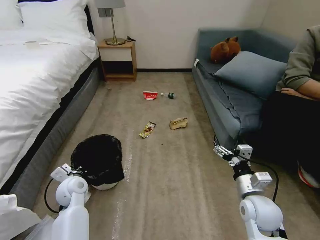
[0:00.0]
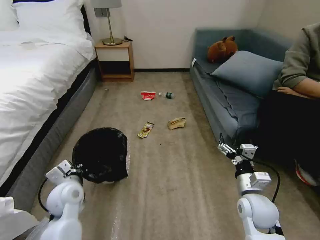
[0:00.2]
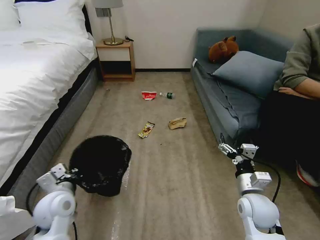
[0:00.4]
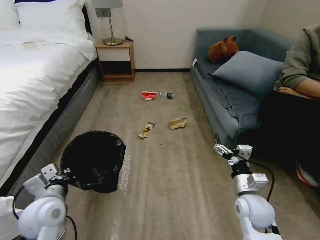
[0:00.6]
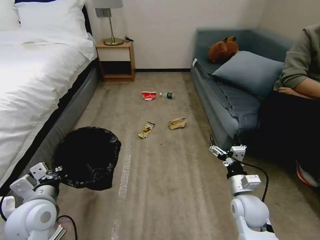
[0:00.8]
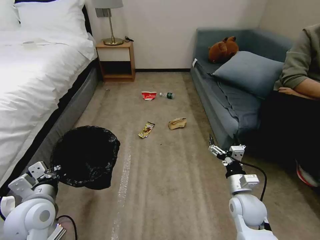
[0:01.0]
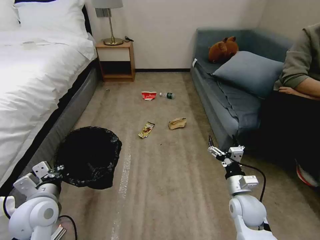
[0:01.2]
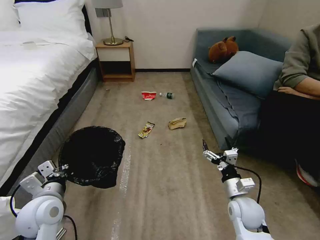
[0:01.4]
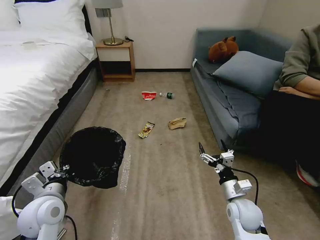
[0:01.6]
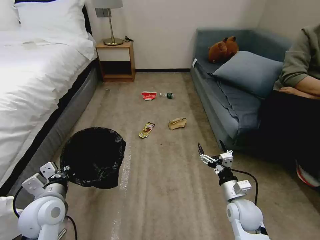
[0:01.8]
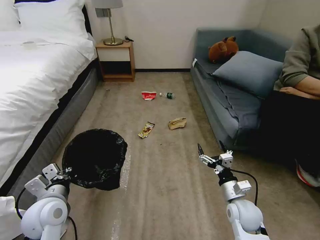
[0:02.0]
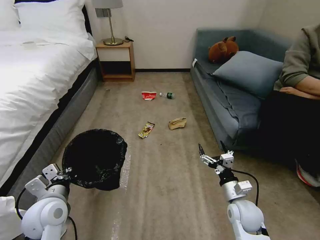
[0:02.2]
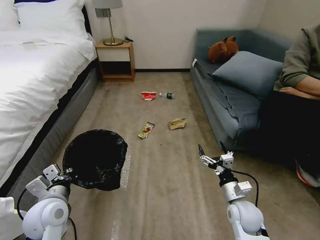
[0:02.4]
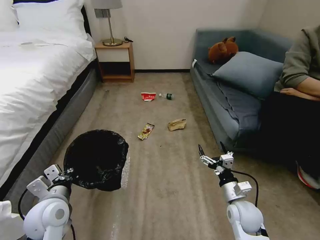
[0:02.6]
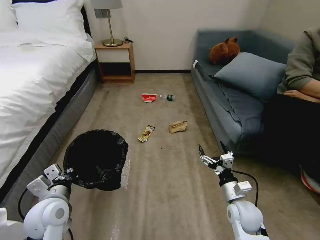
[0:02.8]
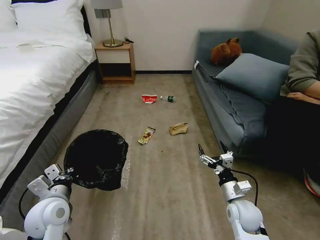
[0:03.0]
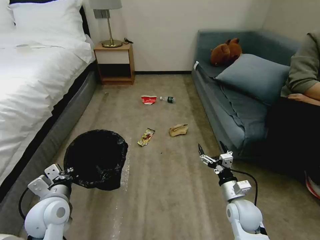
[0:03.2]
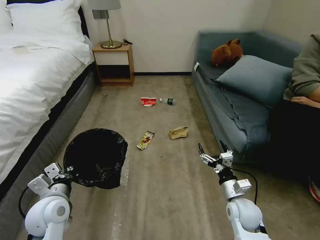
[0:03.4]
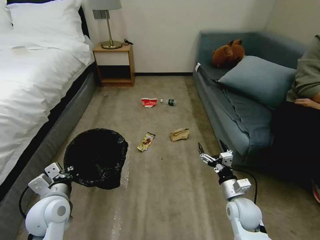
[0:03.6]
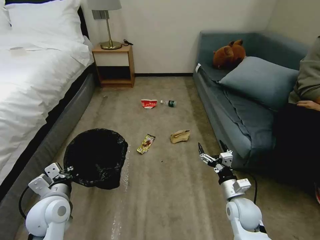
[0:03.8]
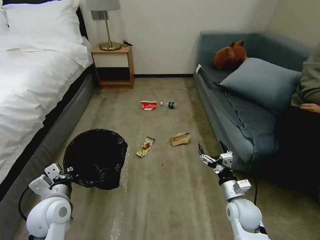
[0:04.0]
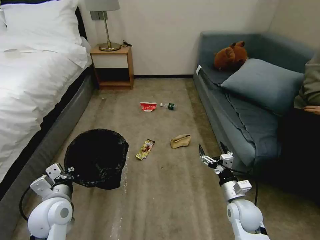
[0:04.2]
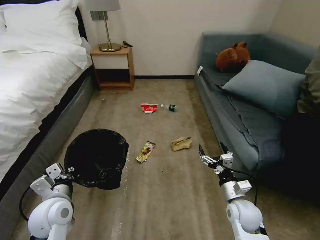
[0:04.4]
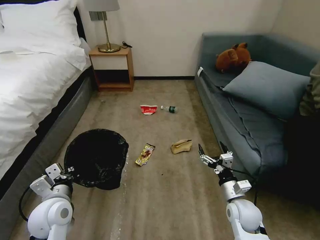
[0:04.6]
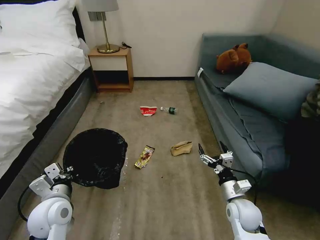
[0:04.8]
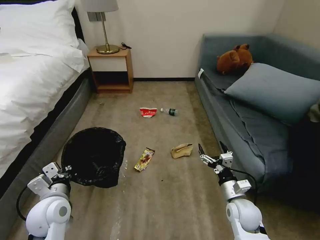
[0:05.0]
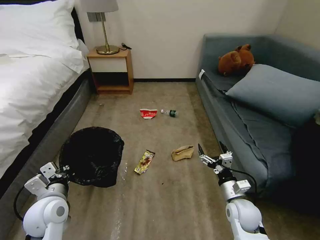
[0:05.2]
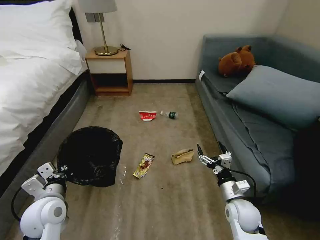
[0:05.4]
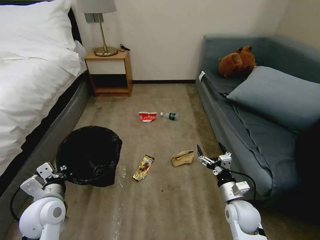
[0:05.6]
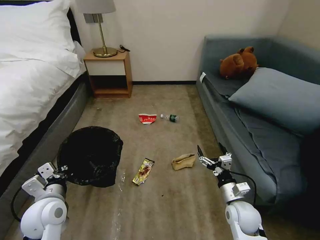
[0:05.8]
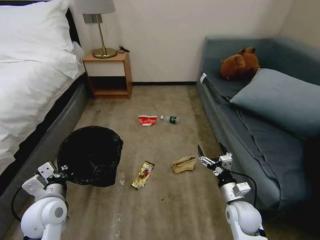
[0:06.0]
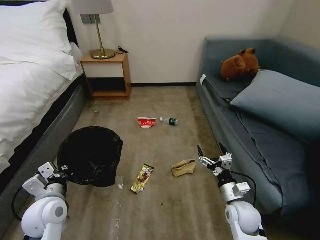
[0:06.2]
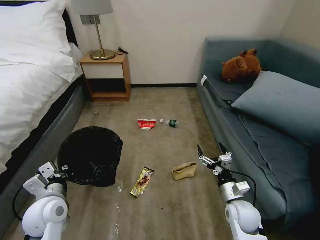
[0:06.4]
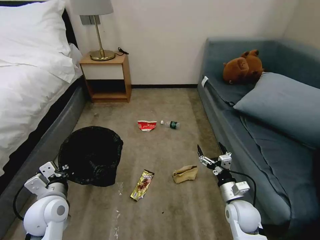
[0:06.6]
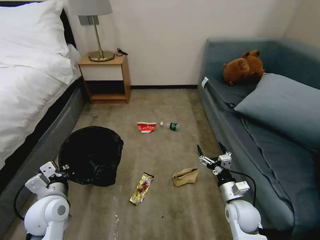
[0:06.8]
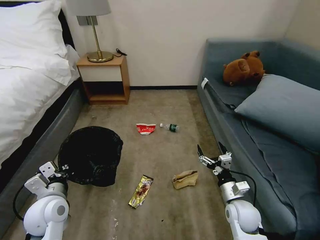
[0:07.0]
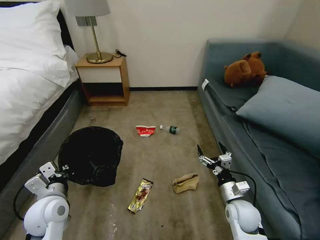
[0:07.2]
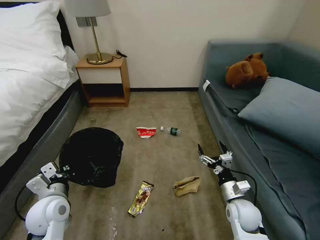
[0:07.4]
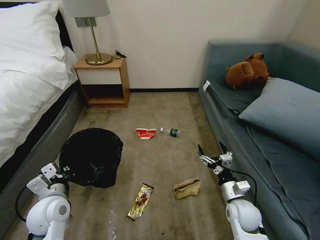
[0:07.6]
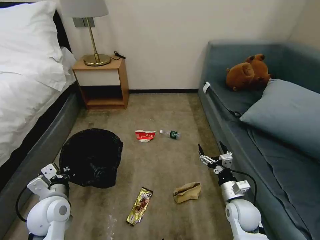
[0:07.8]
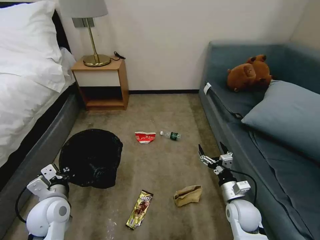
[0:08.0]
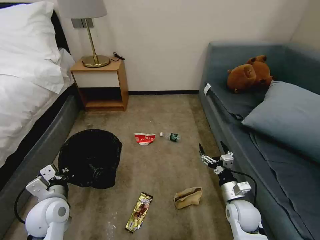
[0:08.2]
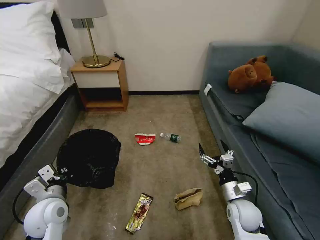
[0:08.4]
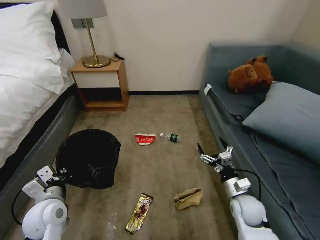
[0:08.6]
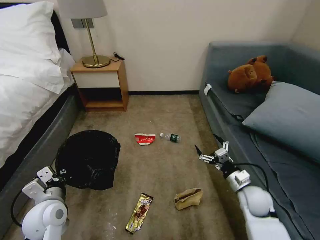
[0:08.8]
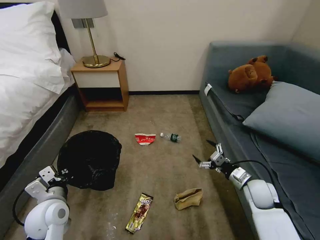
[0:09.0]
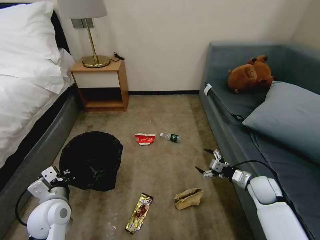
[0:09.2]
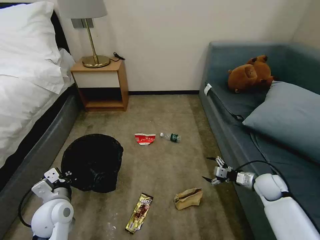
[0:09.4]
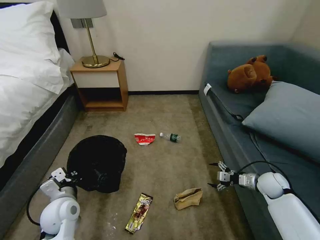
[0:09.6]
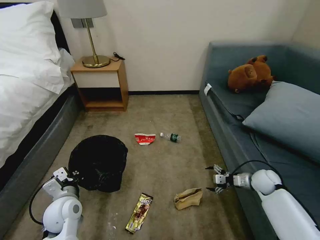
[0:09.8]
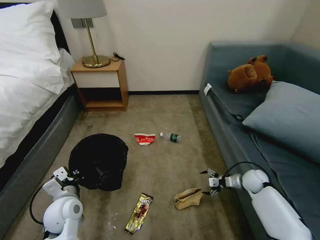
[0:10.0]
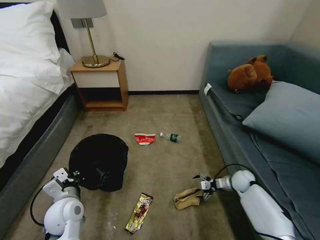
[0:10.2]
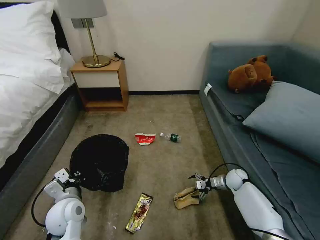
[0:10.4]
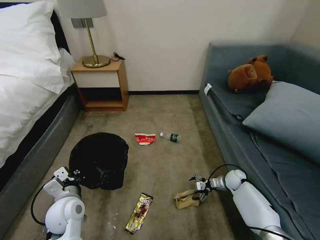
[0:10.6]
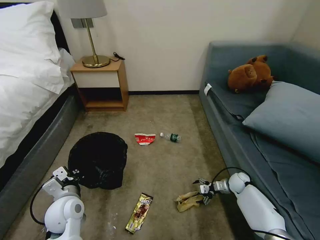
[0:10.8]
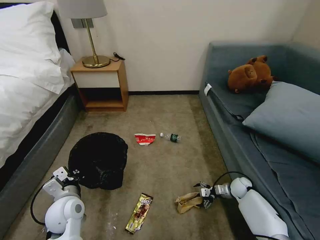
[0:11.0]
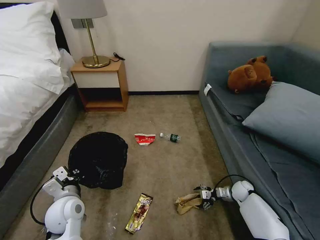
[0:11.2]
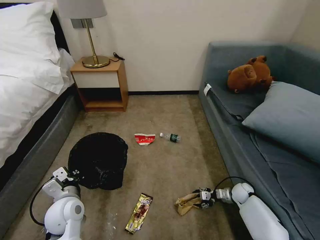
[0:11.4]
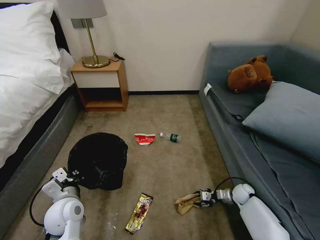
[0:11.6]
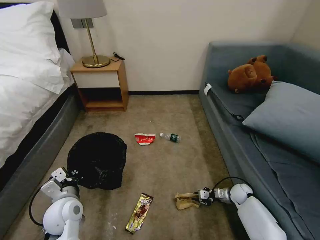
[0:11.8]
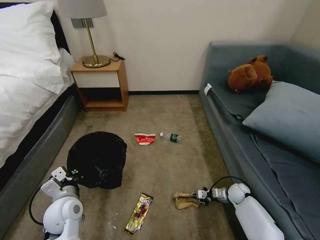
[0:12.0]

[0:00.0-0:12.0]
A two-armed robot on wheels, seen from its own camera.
Task of the whole recording: Pick up the trash bin, then pick up the garbage on the floor and place it into the trash bin.
0:00.0 to 0:01.6: The right gripper heads downward, covering some 5 cm. The left gripper shifts about 15 cm backward and upward.
0:01.6 to 0:03.0: The grippers stay close to where they were, moving slightly.
0:07.6 to 0:09.0: The right gripper travels to the right and forward by about 10 cm.
0:09.0 to 0:10.4: The right gripper goes some 15 cm downward and forward.
0:10.4 to 0:12.0: The right gripper changes place by some 5 cm, and closes.

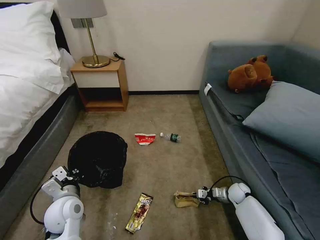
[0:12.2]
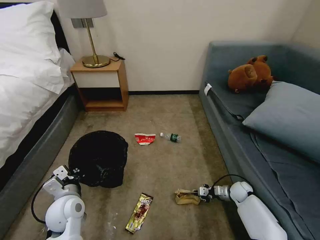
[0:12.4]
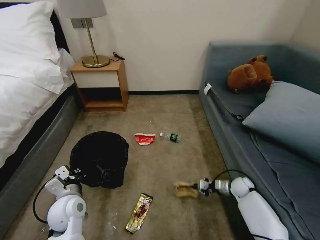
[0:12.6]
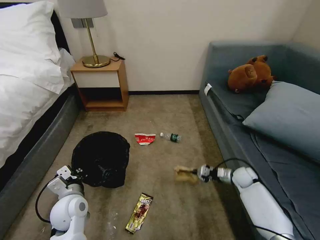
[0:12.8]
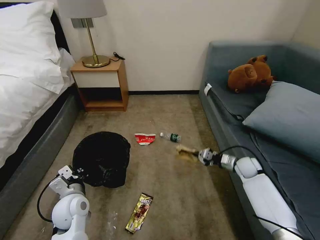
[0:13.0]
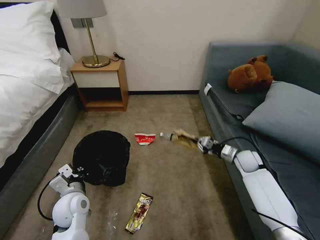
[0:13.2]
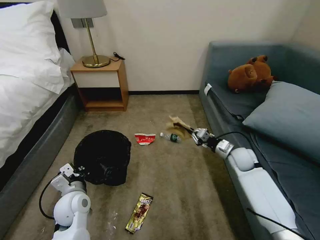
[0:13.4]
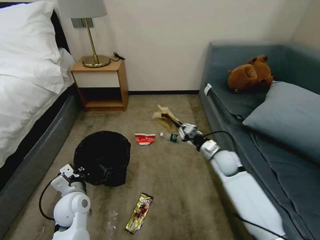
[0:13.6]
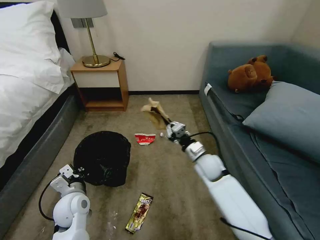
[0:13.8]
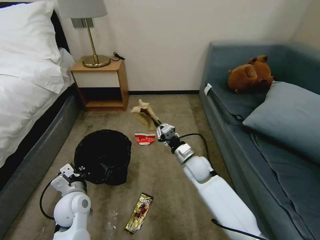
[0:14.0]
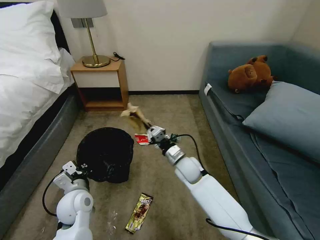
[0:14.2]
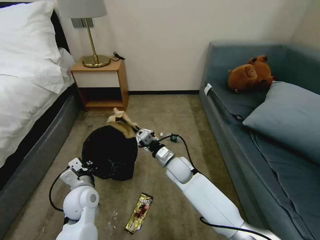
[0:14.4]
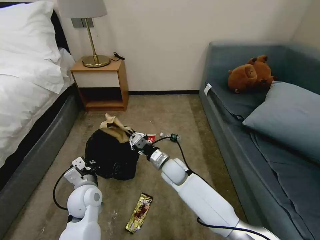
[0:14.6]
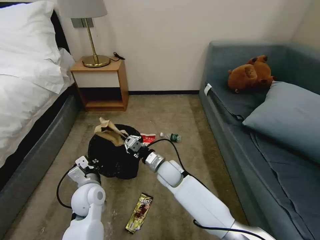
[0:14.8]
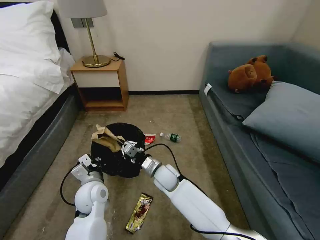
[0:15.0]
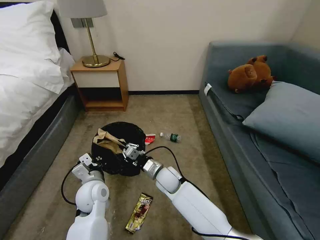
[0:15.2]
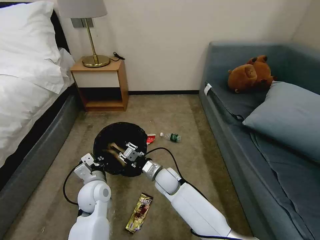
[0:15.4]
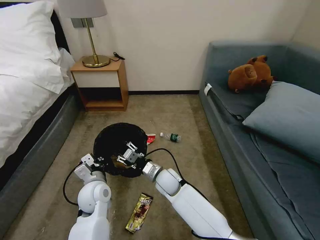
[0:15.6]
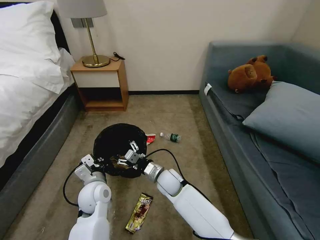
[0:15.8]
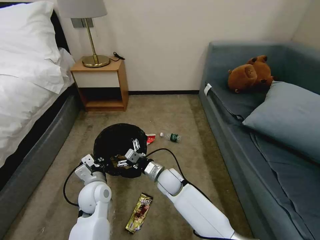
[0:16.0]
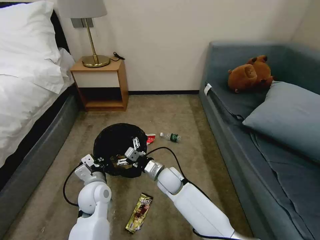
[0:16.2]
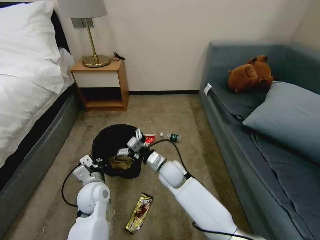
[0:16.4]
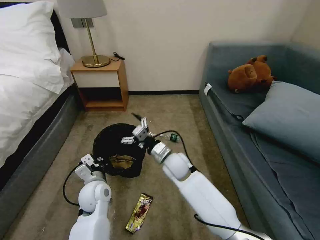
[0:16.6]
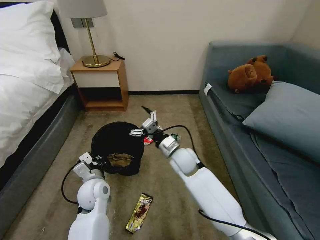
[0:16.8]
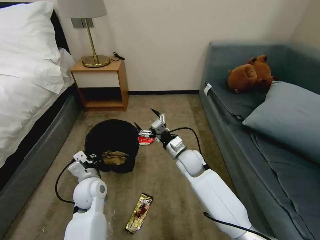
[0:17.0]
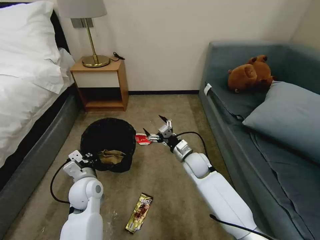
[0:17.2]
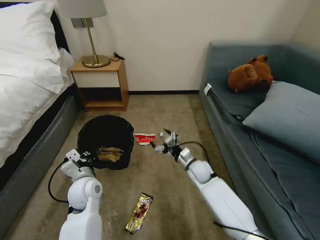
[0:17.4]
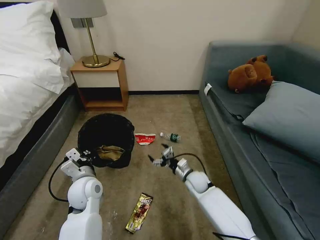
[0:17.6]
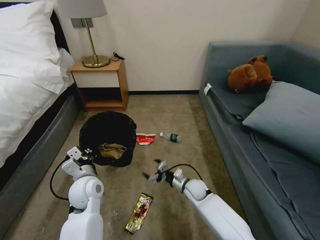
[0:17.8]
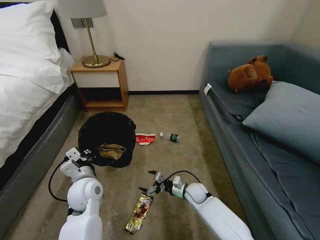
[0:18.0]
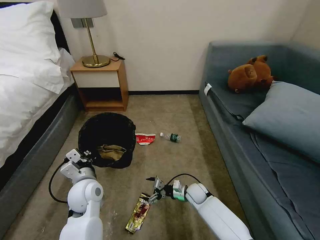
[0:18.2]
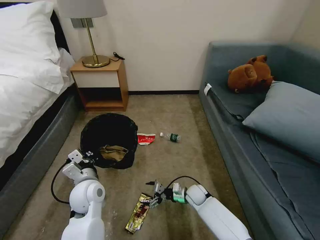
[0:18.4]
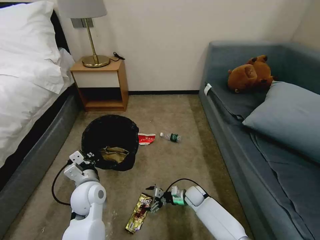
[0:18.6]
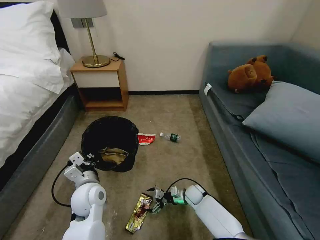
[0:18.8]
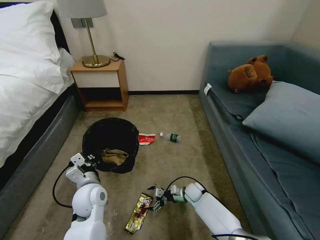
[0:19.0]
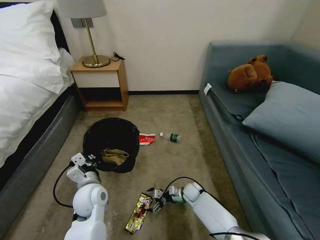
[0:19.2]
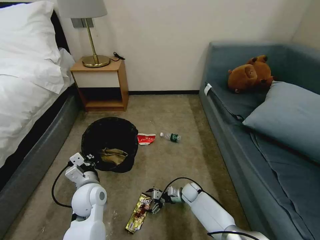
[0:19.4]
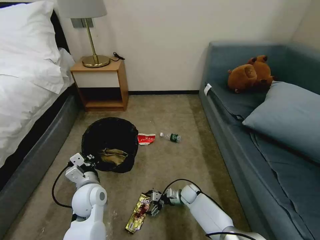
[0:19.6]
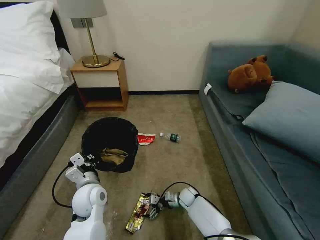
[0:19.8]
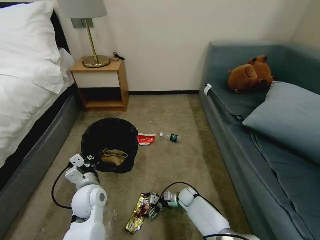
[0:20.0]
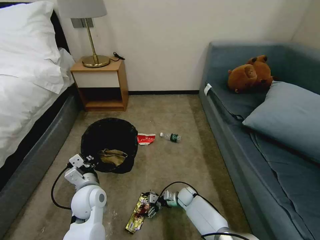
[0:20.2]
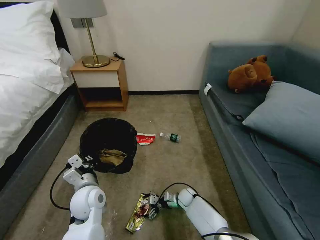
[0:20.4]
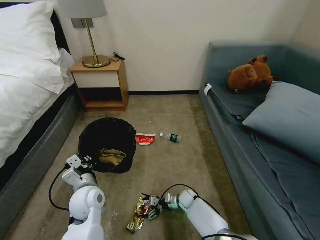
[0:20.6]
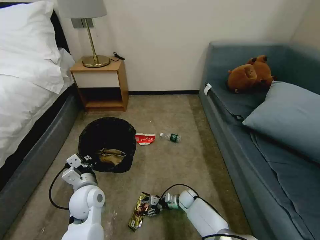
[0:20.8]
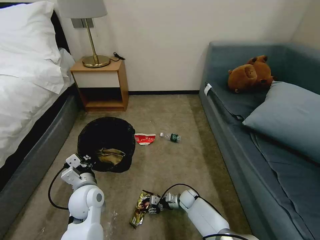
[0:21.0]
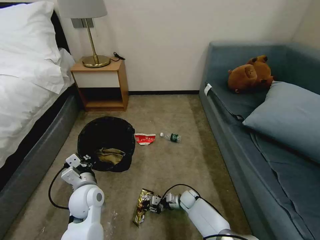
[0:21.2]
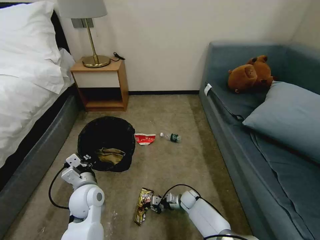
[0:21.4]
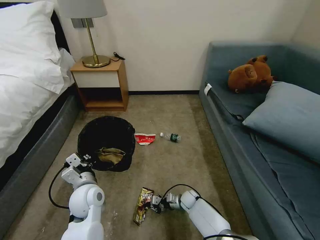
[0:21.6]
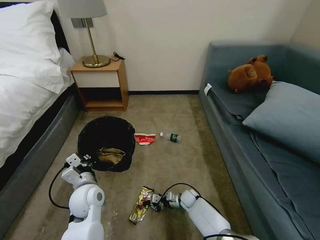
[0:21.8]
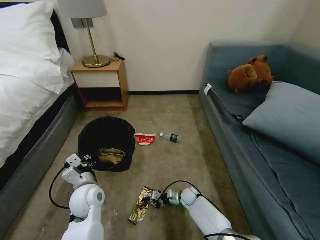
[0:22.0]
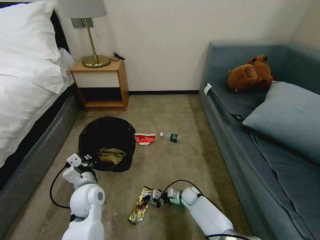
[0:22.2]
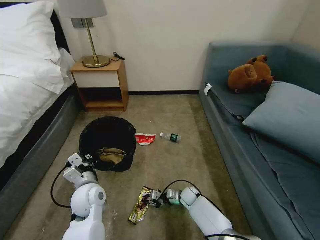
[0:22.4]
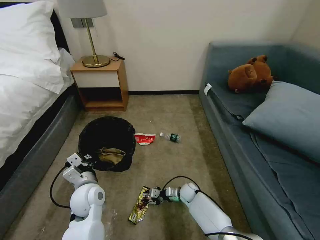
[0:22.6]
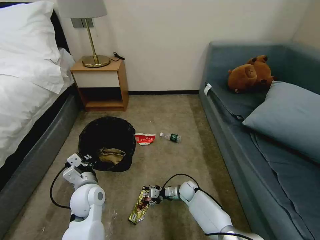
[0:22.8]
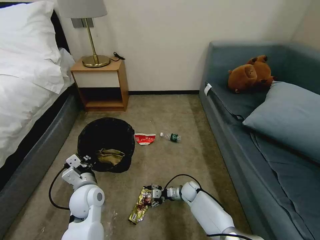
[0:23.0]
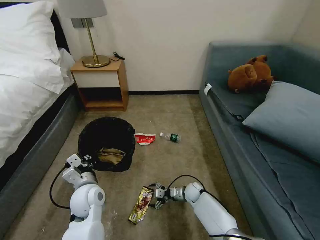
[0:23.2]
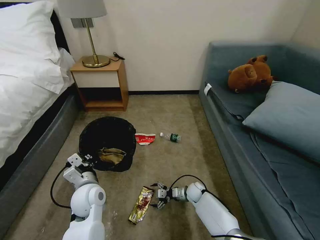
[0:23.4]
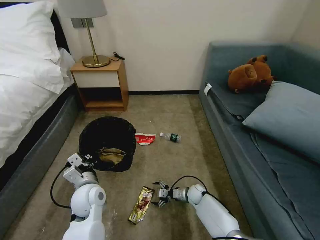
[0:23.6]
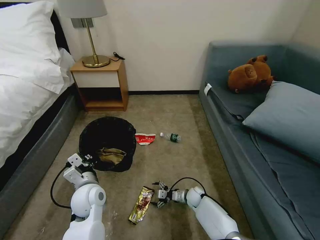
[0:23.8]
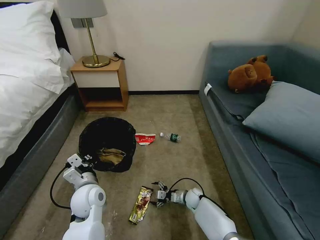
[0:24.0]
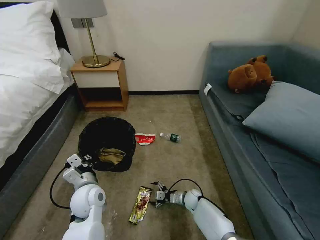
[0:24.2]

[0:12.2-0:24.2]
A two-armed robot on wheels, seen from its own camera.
Task of the whole recording: Pick up the trash bin, then pick up the garbage on the floor and place it into the trash bin.
0:12.2 to 0:13.8: The right gripper travels to the left and upward by approximately 30 cm.
0:13.8 to 0:15.2: The left gripper shifts approximately 5 cm to the right. Meanwhile the right gripper heads to the left and downward, covering about 15 cm.
0:15.2 to 0:16.6: The right gripper goes some 10 cm upward, and opens its fingers.
0:16.6 to 0:18.2: The right gripper is displaced downward and to the right by roughly 25 cm.
0:18.2 to 0:19.8: The right gripper is displaced downward by some 5 cm.
0:19.8 to 0:21.2: The right gripper closes.
0:21.2 to 0:22.6: The grippers move only a little.
0:22.6 to 0:24.2: The right gripper opens up.
